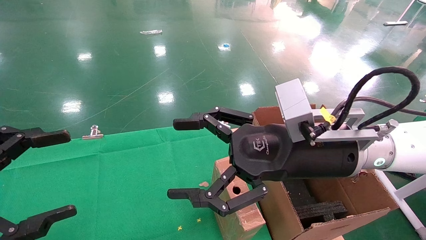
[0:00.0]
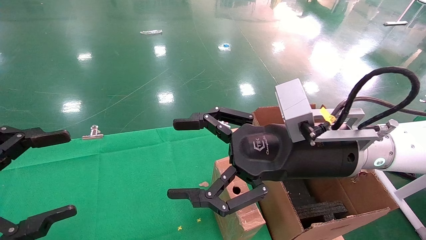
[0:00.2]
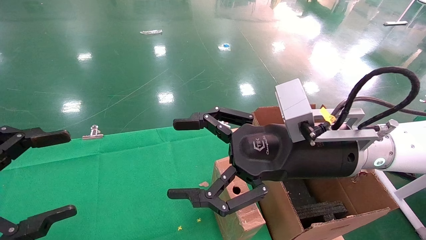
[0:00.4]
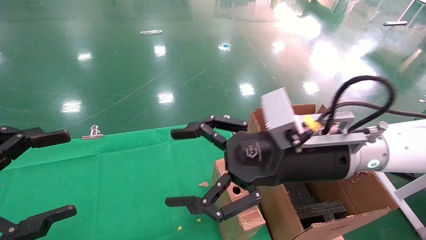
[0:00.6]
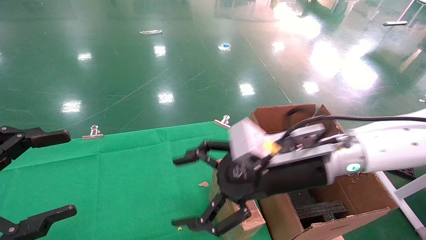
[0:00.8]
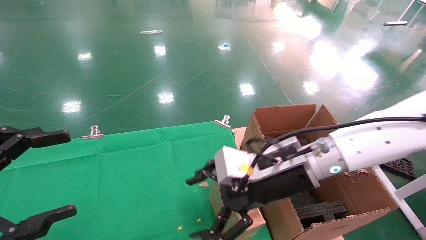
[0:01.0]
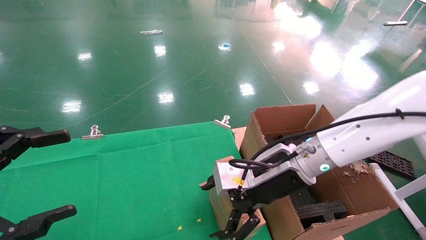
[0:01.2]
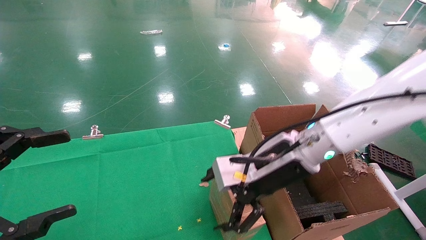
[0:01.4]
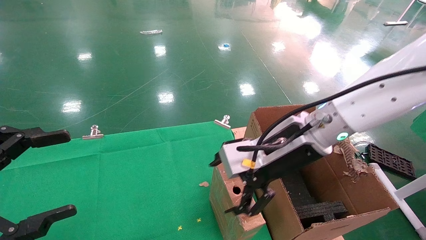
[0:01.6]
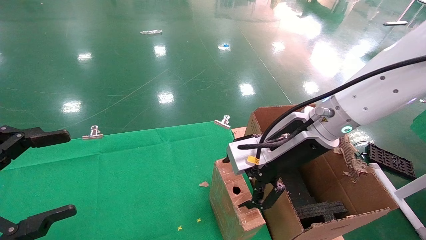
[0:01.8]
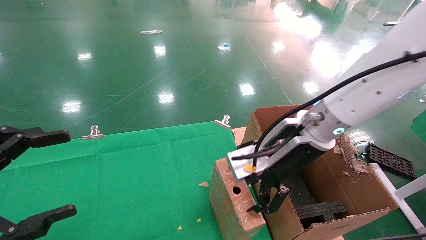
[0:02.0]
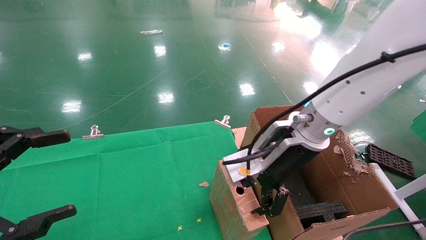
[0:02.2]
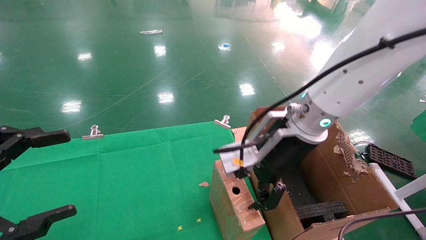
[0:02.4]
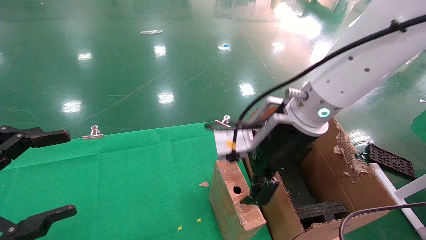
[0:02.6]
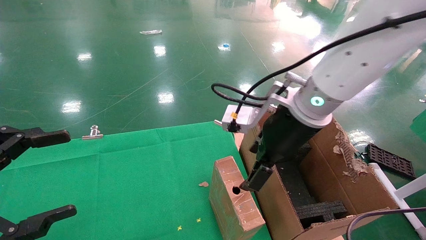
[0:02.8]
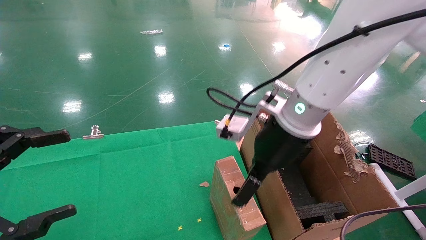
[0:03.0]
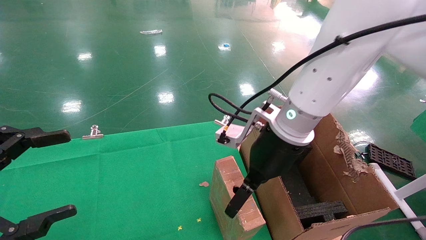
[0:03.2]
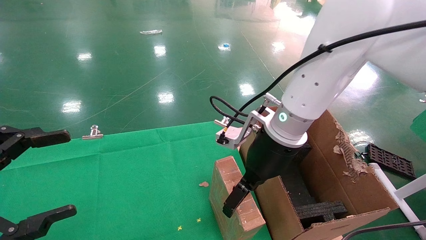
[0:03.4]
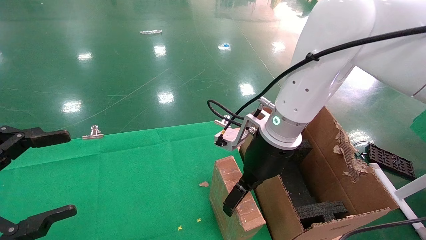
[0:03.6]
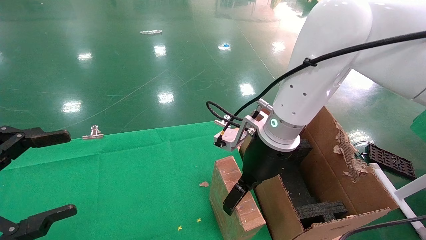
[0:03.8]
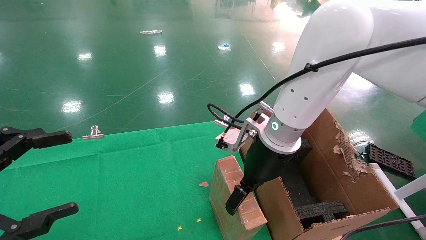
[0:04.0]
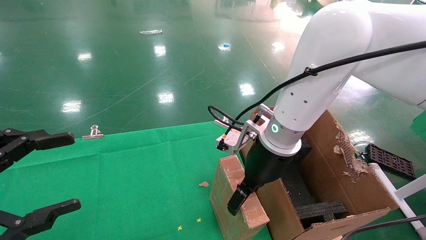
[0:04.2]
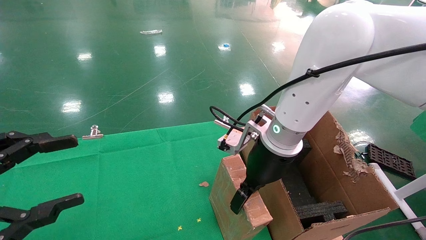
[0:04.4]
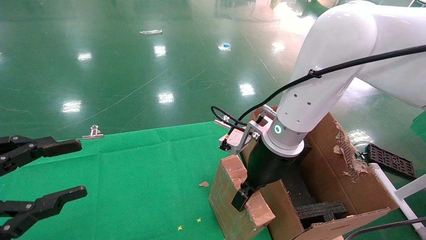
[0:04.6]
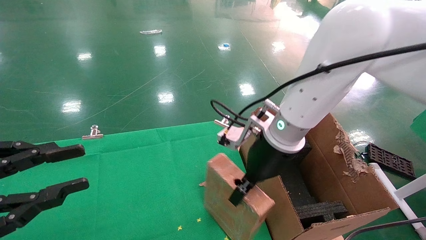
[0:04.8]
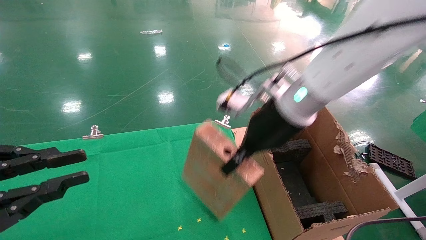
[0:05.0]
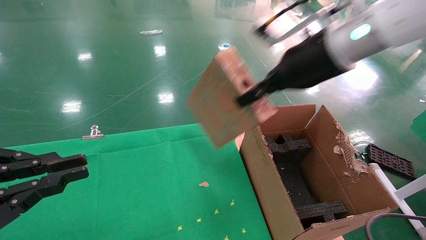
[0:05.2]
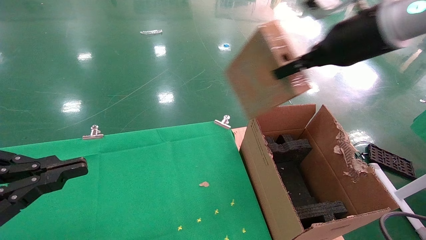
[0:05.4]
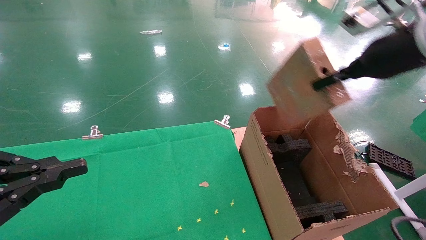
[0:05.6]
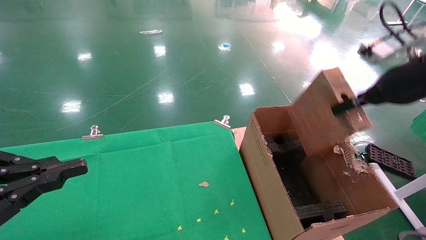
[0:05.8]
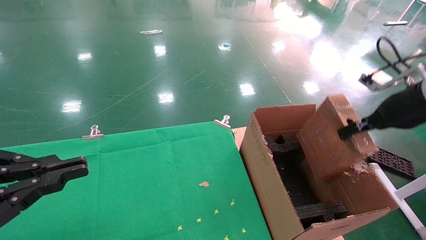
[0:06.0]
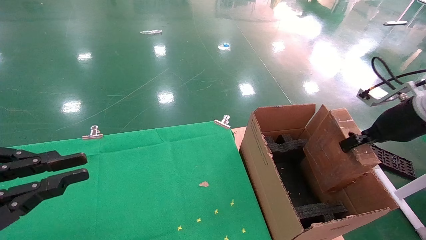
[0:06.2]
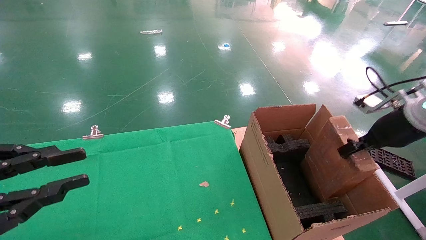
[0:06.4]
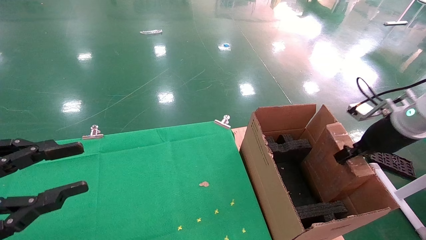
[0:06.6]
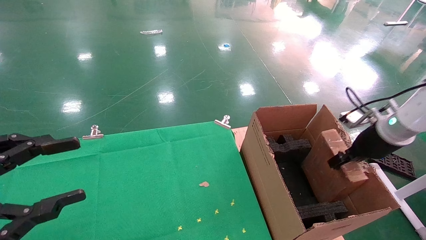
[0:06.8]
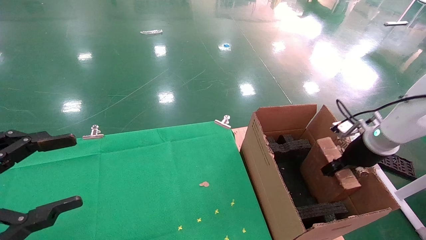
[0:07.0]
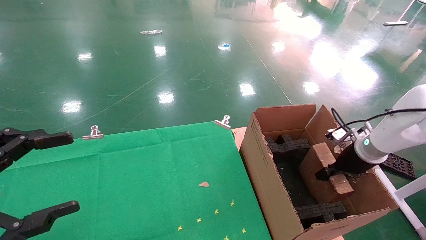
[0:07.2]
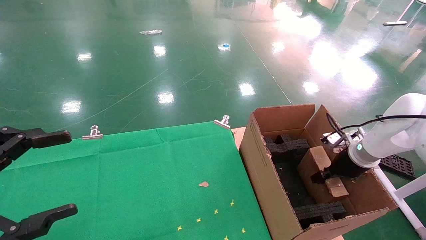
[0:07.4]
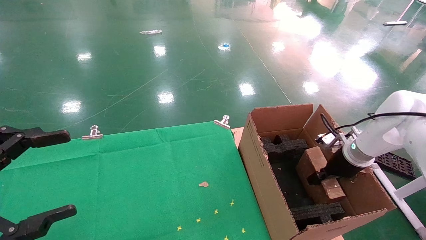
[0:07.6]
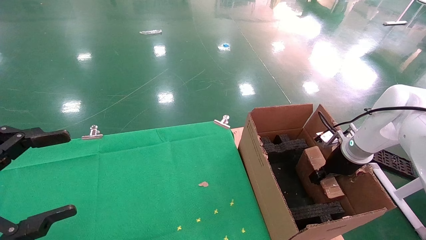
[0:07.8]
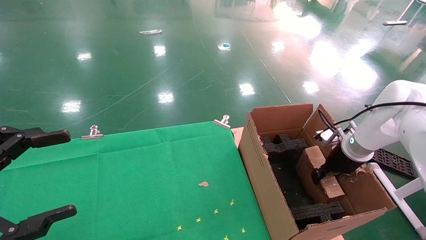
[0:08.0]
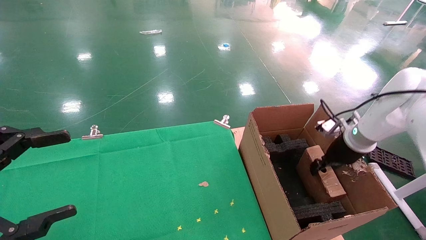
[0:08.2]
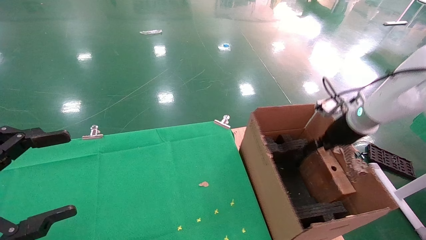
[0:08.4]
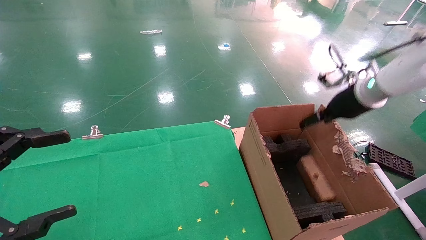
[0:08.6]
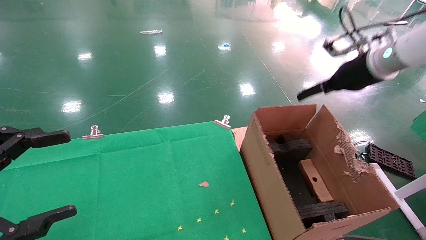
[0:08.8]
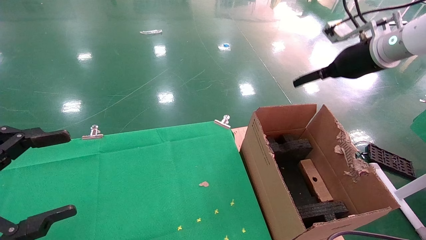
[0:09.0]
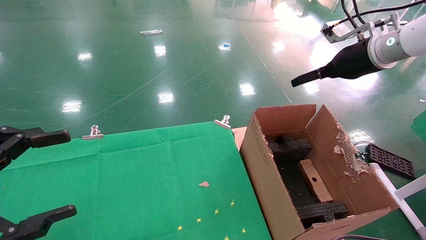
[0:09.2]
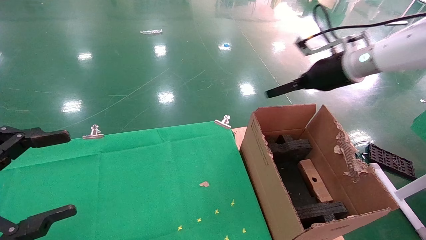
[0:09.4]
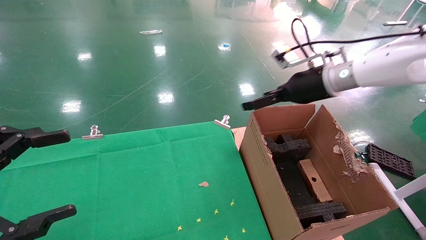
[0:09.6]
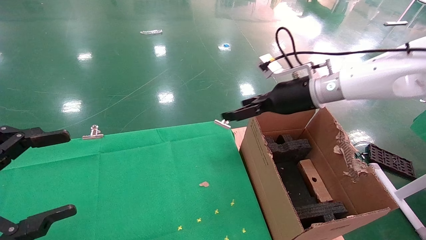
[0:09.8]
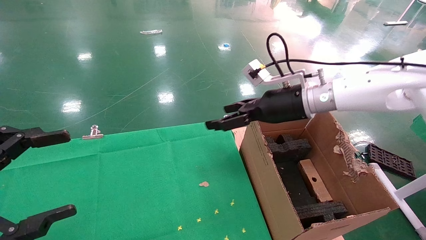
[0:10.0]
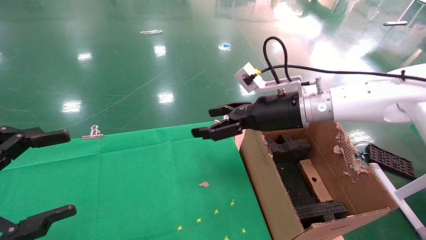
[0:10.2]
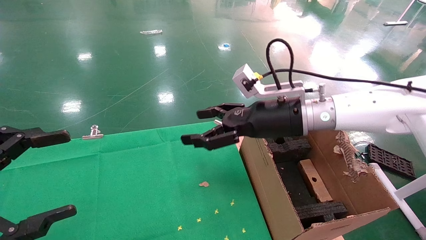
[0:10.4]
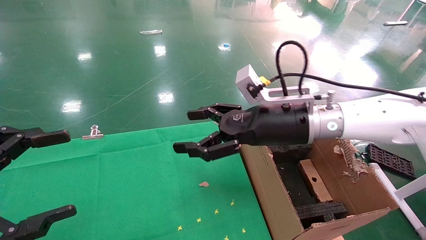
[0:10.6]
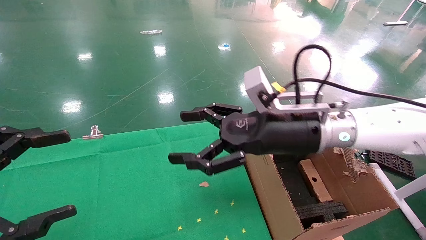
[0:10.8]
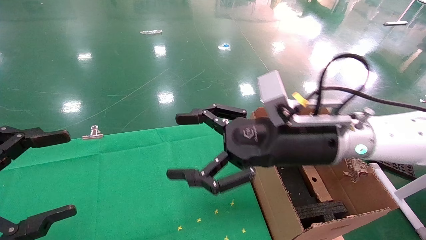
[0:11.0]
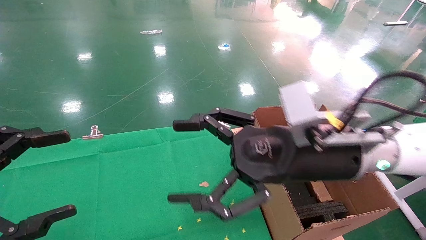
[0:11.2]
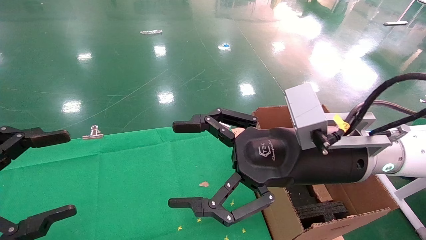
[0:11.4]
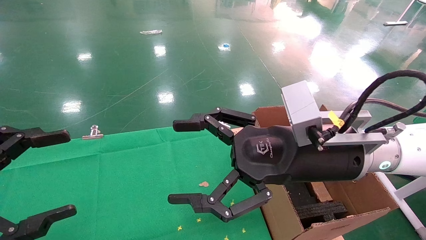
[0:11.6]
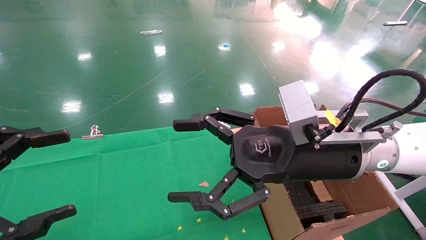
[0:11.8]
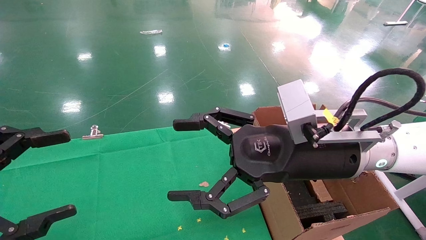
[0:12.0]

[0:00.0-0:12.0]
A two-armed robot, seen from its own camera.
Task of the whole recording: using a robotic arm to pick up a cardboard box and palace it the carton.
Step, 0:00.8 to 0:04.8: Pick up the mouse and the power cord paper box.
Step, 0:05.0 to 0:09.0: Place the mouse and the power cord paper box into the container.
0:00.0 to 0:01.6: The right gripper shifts by approximately 5 cm.
0:03.0 to 0:04.4: The right gripper closes up.
0:04.4 to 0:06.0: The right gripper moves to the right, some 25 cm, and closes its fingers; the left gripper closes up.
0:06.0 to 0:07.6: The left gripper opens up; the right gripper moves downward and forward, roughly 20 cm.
0:07.6 to 0:09.0: The right gripper shifts approximately 25 cm upward, and opens up.
0:09.0 to 0:10.4: The right gripper shifts approximately 20 cm to the left and downward.
0:10.4 to 0:12.0: The right gripper is displaced backward by roughly 10 cm.

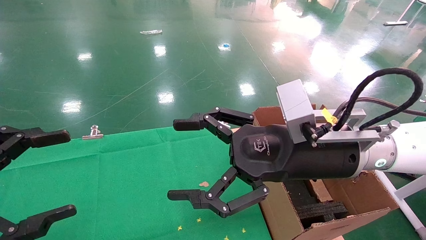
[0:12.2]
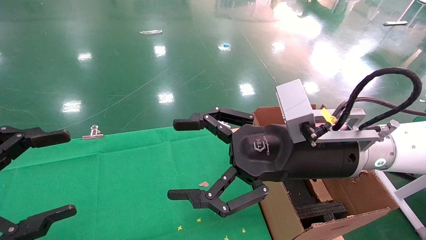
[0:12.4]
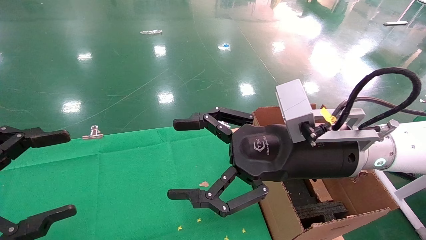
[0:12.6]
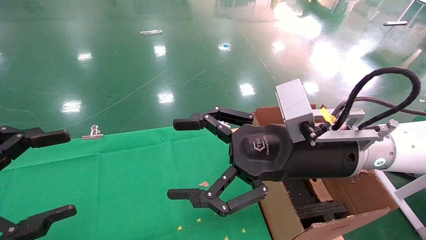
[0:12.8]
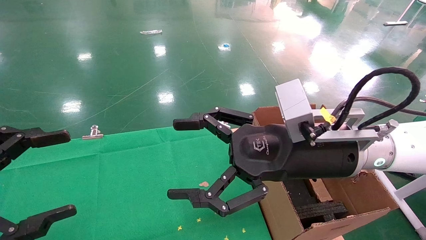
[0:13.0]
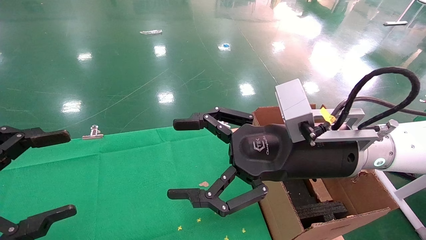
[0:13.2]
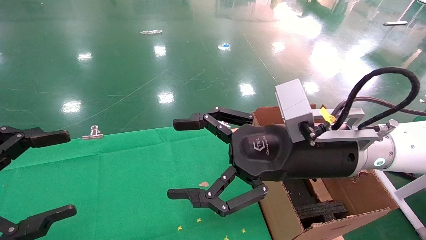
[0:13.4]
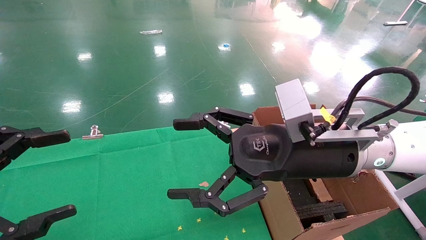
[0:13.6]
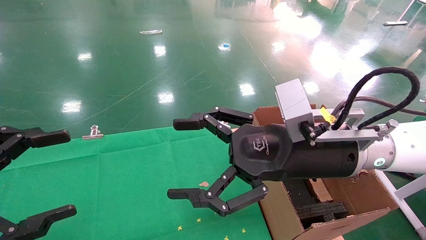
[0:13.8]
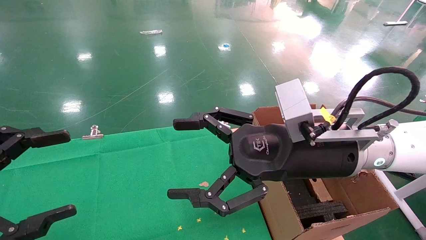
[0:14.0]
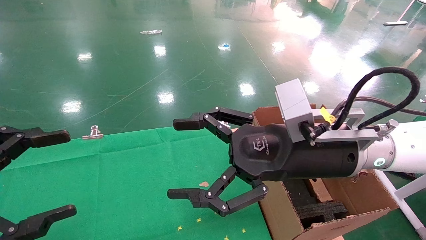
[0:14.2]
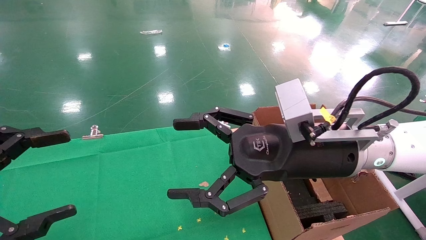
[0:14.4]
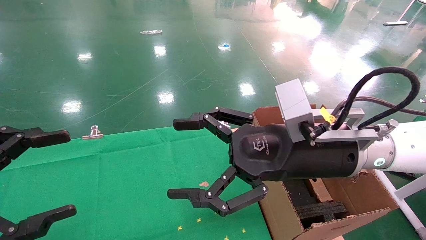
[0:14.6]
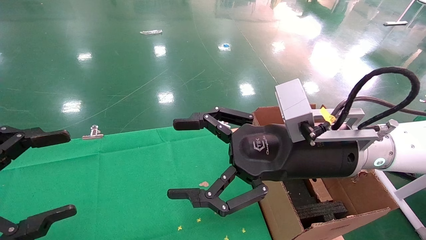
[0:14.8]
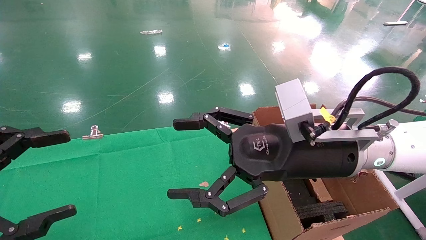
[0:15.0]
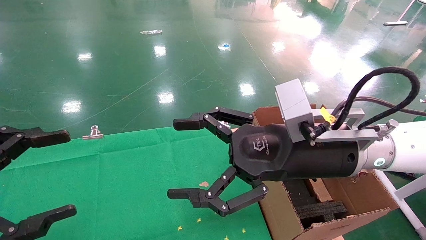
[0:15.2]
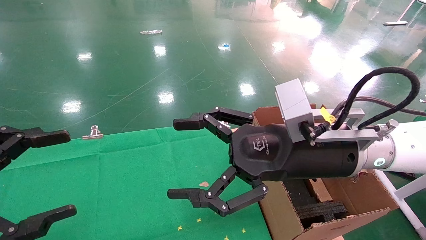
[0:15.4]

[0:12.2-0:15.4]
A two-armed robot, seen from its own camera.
Task of the whole recording: using a robotic arm to pick up a cardboard box and palace it the carton.
0:12.2 to 0:15.4: Both grippers stay about where they are.
